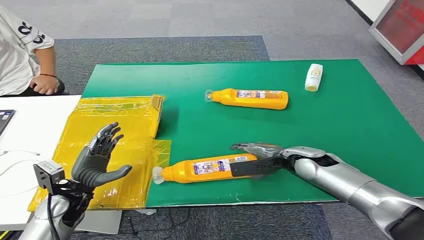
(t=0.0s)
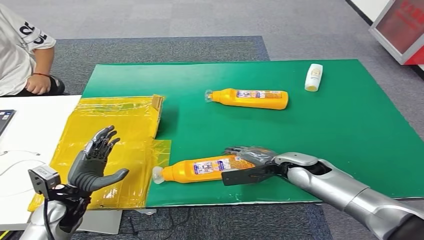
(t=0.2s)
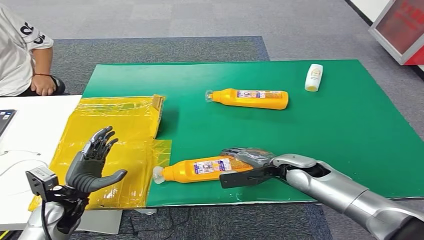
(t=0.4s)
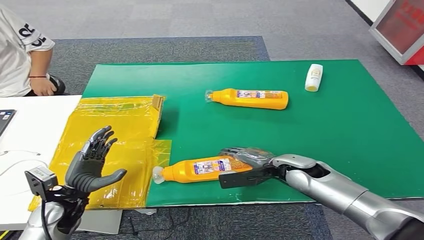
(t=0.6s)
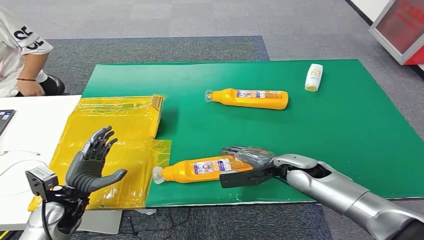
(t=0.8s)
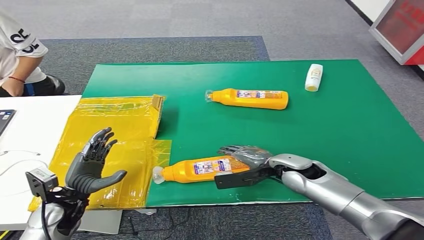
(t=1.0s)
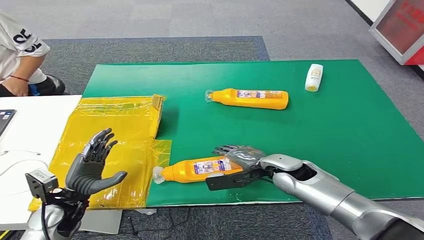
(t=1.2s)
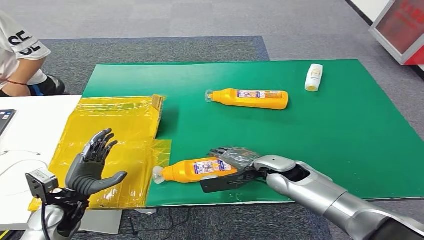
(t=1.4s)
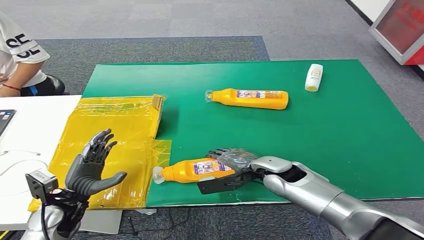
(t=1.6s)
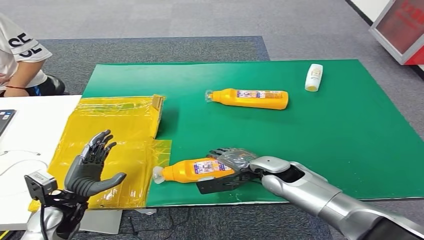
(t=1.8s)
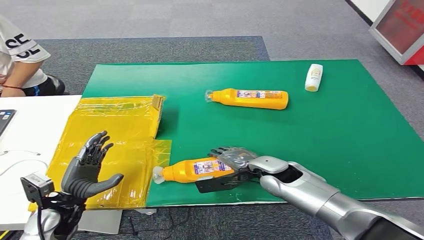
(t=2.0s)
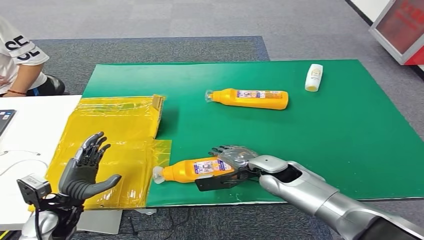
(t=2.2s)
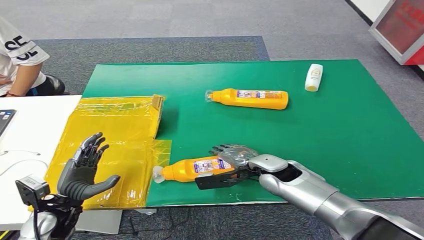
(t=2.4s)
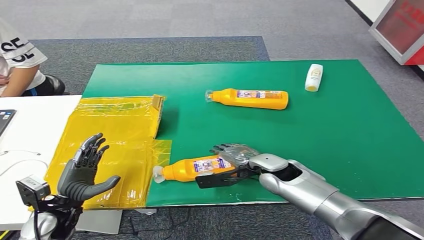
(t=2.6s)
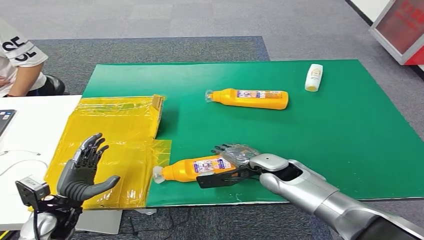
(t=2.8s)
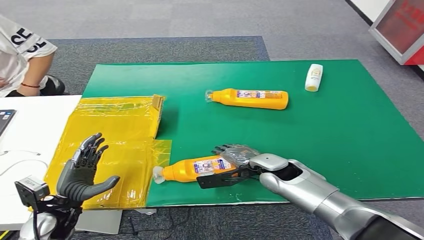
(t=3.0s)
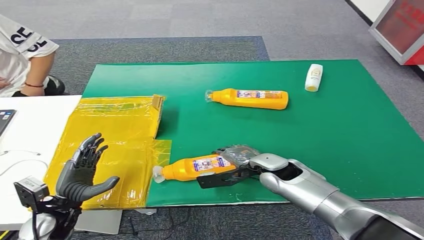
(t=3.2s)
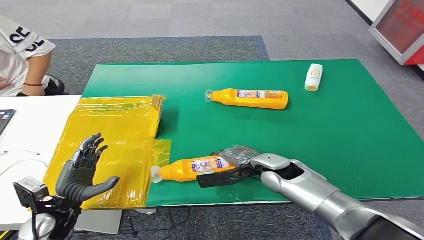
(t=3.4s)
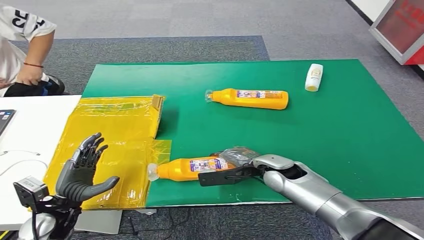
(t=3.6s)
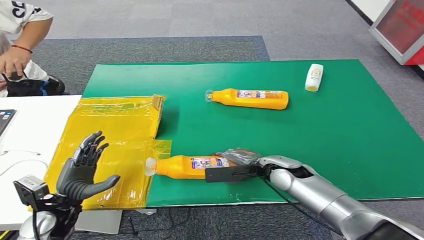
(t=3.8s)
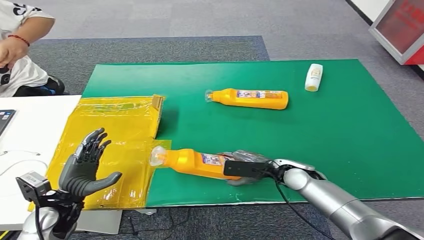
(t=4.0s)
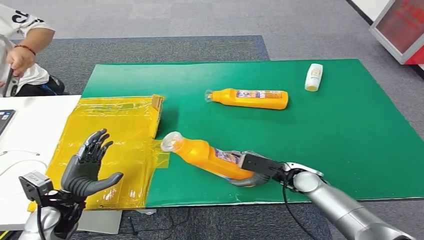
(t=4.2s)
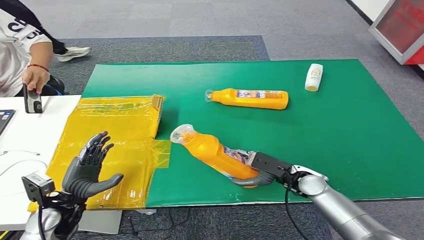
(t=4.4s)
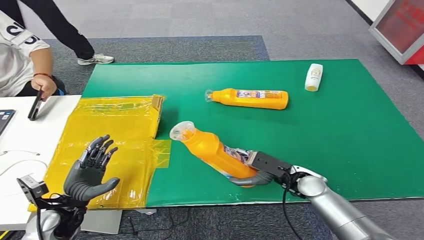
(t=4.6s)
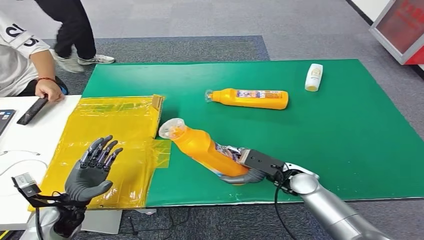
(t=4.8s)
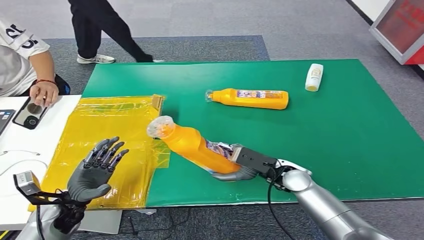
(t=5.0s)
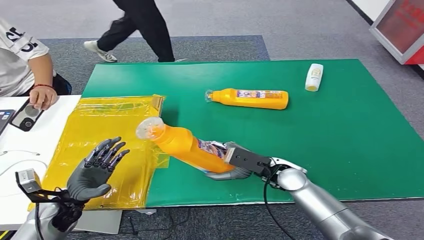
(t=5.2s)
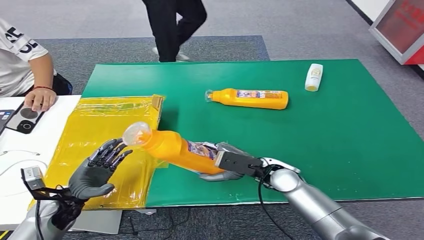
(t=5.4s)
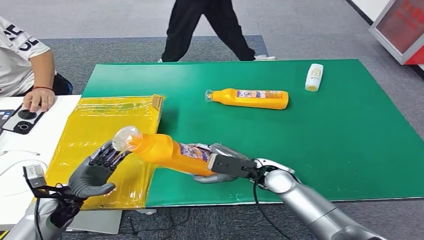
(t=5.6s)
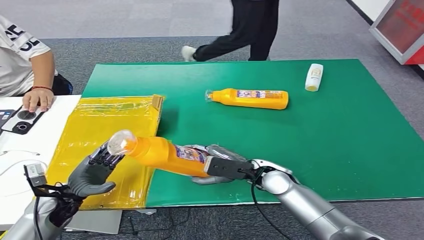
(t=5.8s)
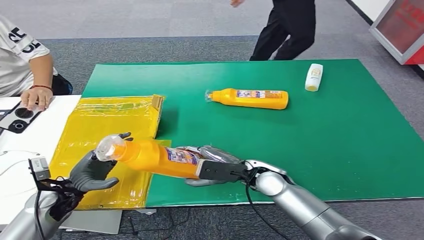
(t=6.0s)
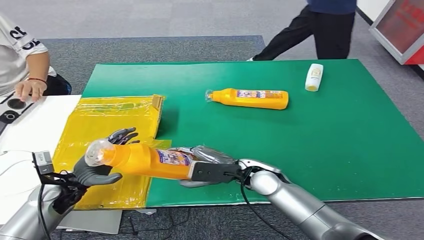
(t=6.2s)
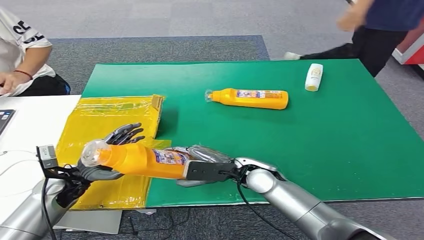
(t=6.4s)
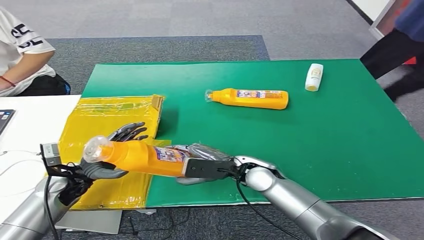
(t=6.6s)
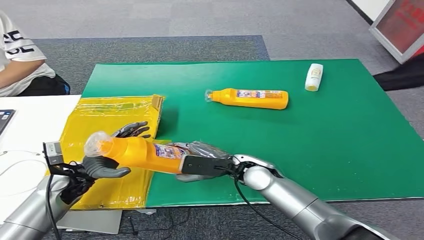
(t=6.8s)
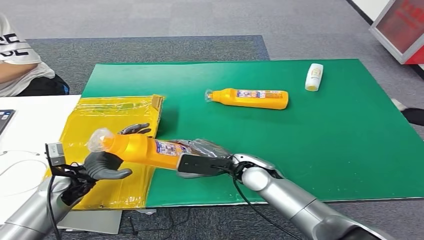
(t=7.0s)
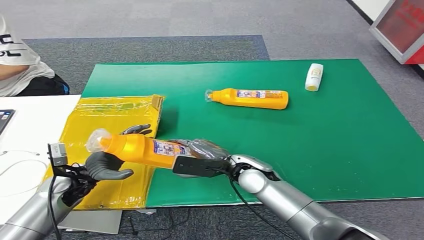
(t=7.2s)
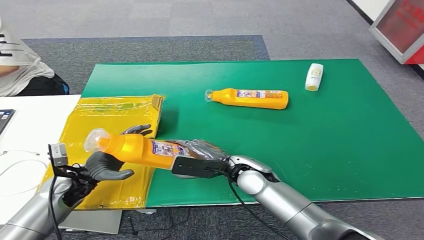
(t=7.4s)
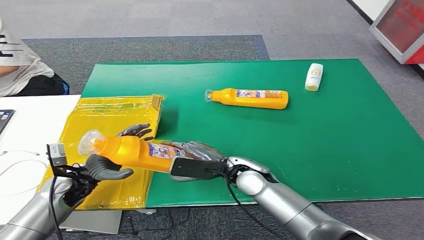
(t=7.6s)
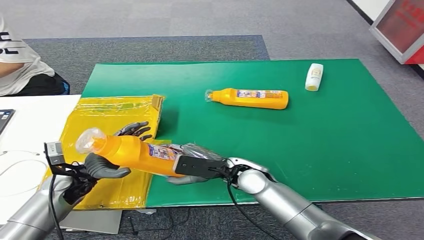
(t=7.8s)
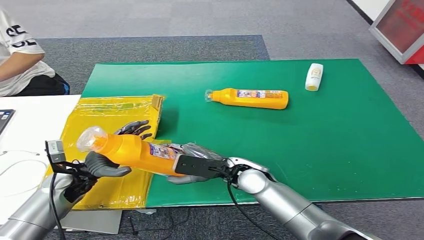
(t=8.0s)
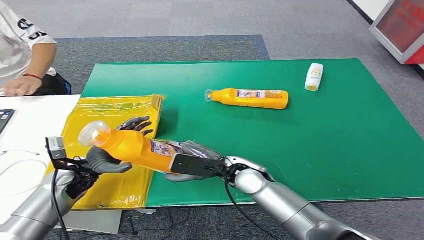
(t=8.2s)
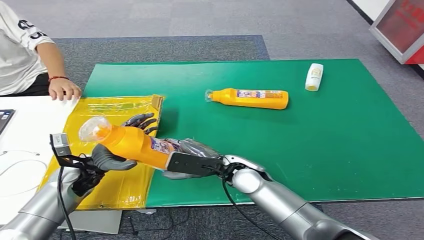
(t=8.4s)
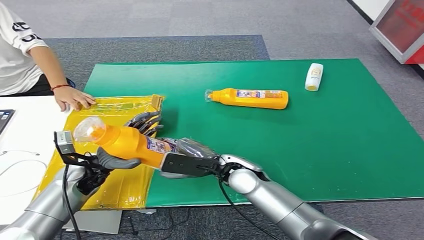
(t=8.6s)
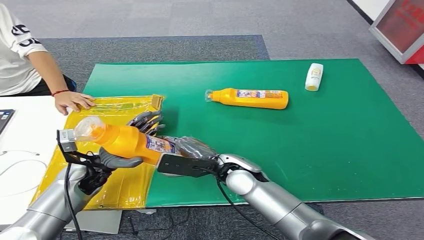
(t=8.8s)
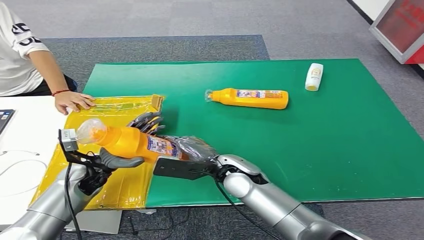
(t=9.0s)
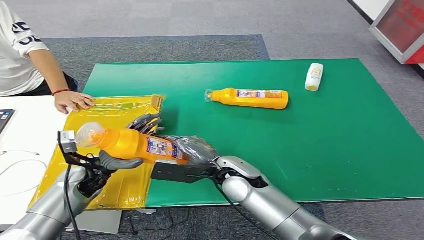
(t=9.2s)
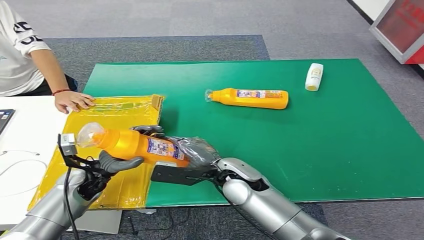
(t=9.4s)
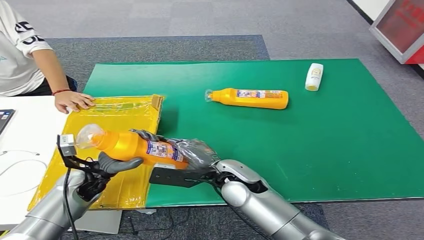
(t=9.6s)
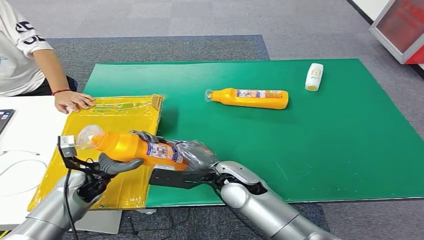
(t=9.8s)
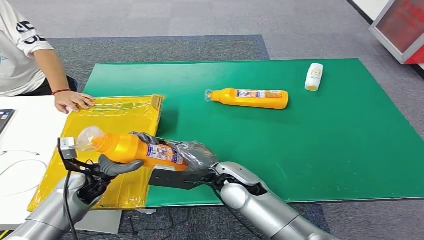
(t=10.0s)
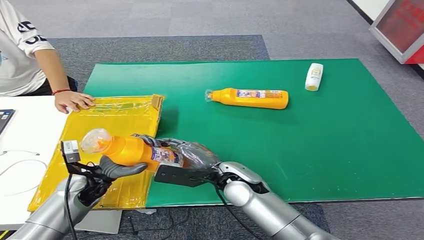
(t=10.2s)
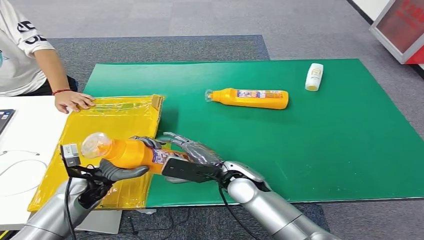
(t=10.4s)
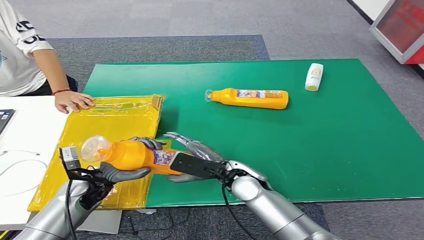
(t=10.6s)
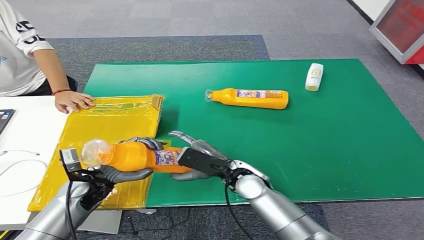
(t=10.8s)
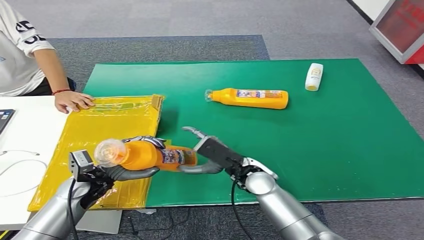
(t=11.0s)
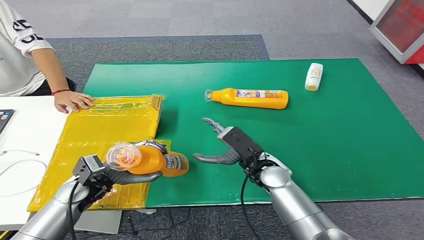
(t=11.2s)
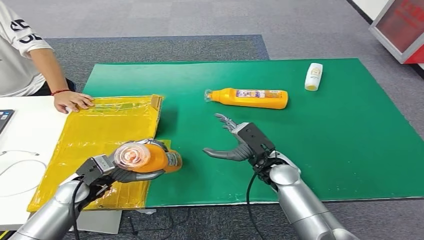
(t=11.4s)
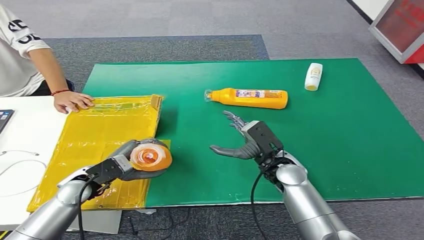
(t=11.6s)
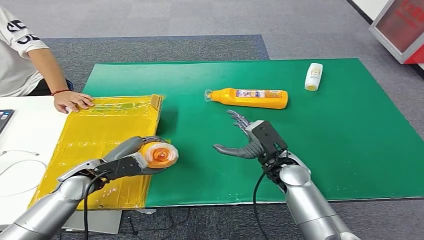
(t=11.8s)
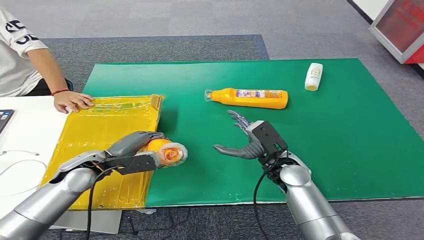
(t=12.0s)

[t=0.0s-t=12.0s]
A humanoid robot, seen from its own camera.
Step, t=0.0s to t=4.6s: Pick up the bottle from the table.
t=1.6s to t=3.0s: The hands move only a little.
t=3.0s to t=4.4s: The right hand shifts approximately 10 cm to the right.
t=6.0s to t=7.6s: The left hand moves roughly 5 cm.
t=7.6s to t=9.0s: The left hand ends up roughly 5 cm from where it was.
t=9.0s to t=10.4s: There are only small adjustments of the hands.
t=10.4s to t=12.0s: The right hand shifts roughly 10 cm to the right. Meanwhile the left hand travels upward by approximately 5 cm.

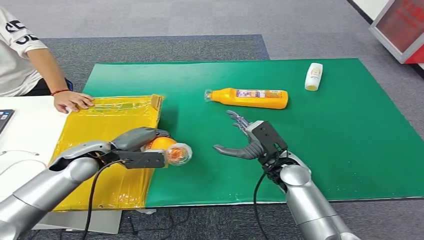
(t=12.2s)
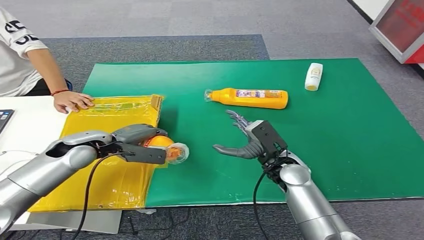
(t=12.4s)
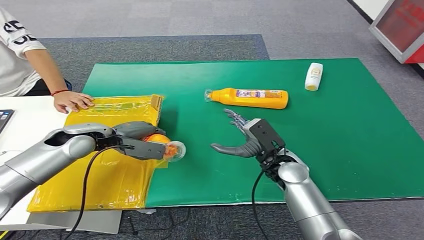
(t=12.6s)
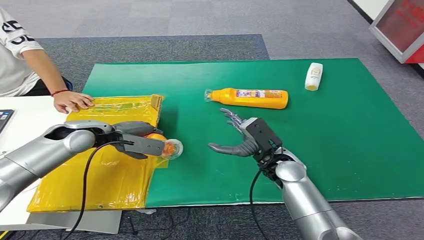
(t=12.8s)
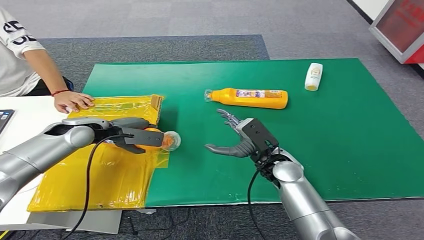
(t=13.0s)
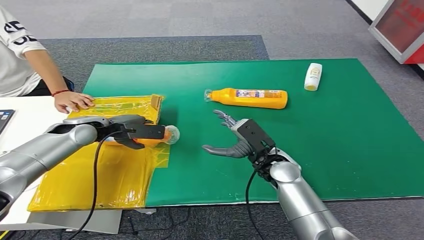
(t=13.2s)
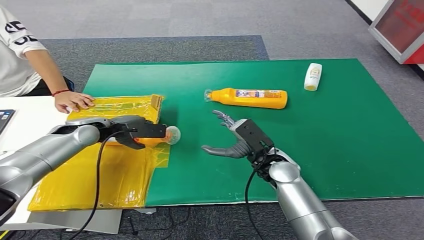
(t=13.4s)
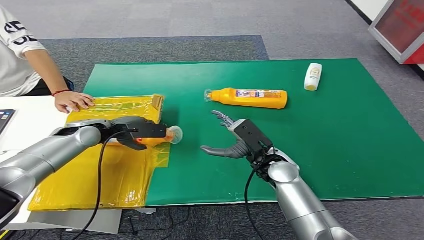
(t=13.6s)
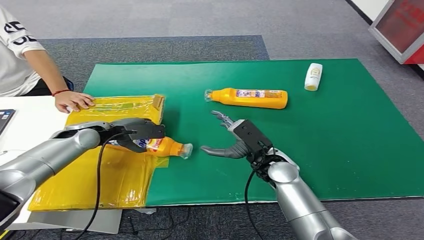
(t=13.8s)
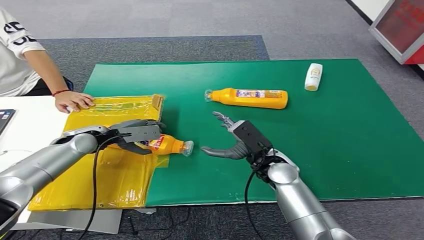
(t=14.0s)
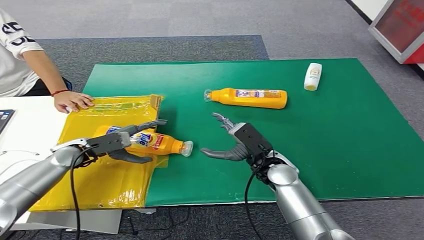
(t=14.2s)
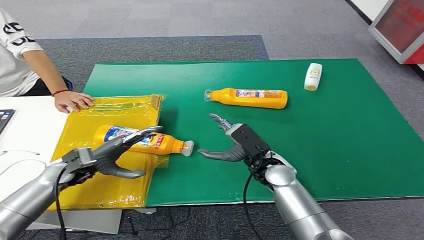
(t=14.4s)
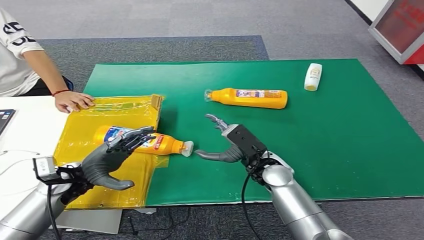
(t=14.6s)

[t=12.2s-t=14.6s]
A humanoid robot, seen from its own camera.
Step, t=12.2s to t=14.6s: Turn the bottle to the front side.
t=12.2s to t=13.4s: The left hand is displaced forward by some 10 cm.
t=13.4s to t=14.6s: The left hand goes roughly 15 cm backward and downward.
